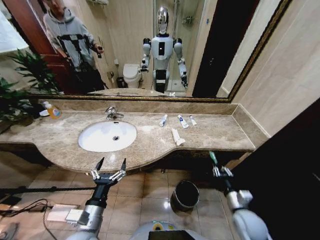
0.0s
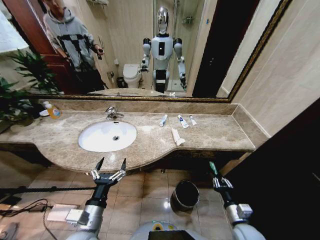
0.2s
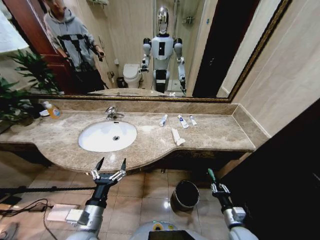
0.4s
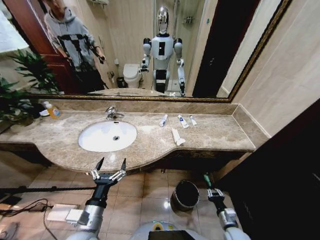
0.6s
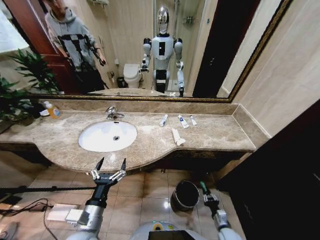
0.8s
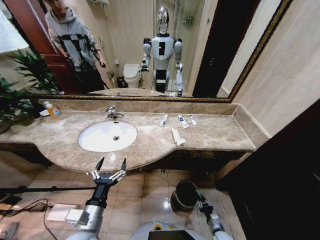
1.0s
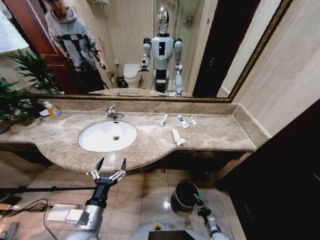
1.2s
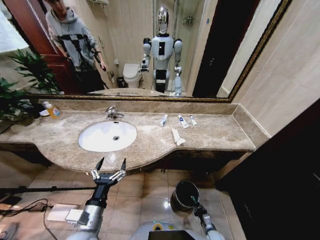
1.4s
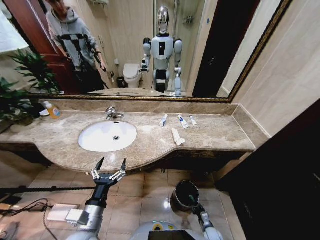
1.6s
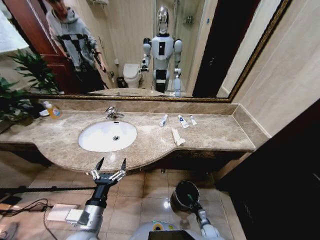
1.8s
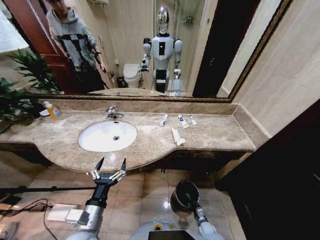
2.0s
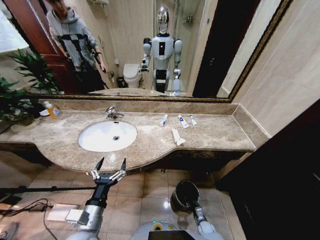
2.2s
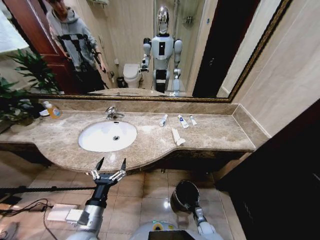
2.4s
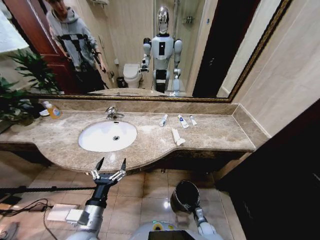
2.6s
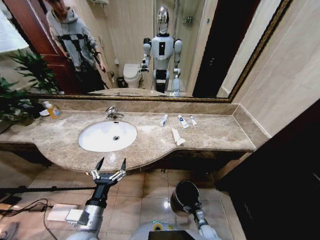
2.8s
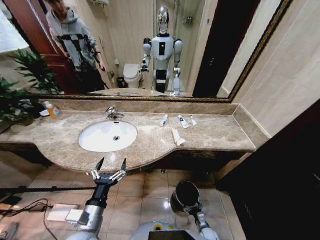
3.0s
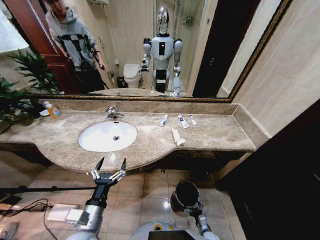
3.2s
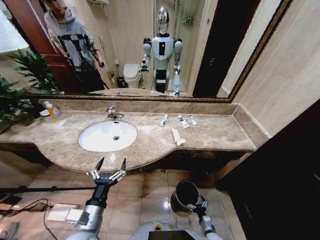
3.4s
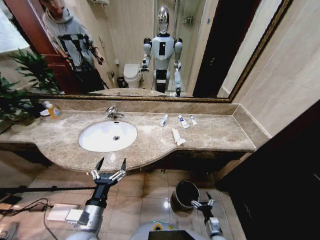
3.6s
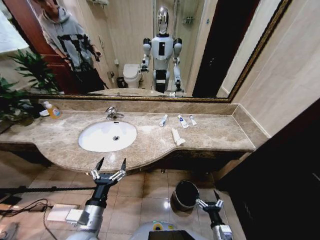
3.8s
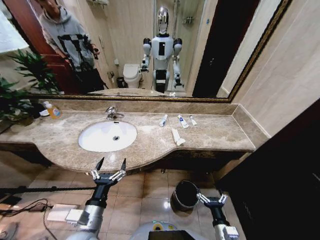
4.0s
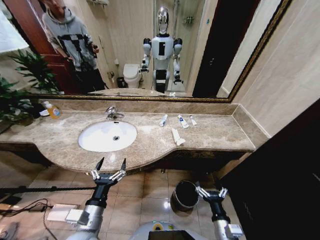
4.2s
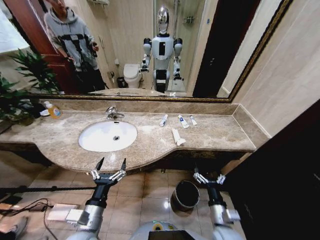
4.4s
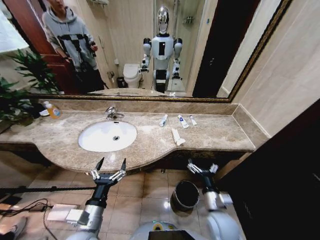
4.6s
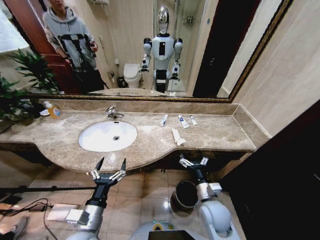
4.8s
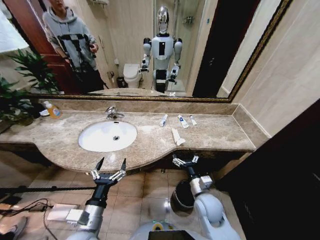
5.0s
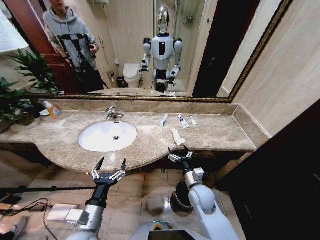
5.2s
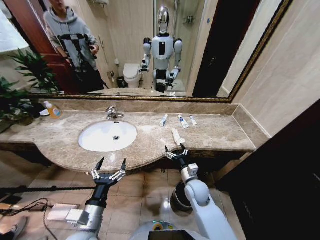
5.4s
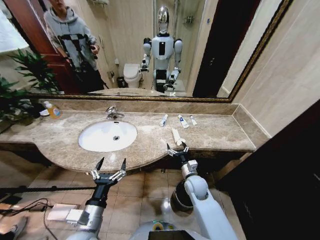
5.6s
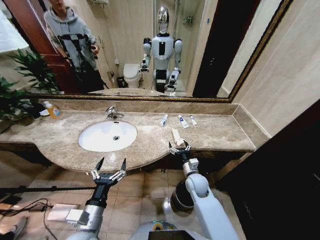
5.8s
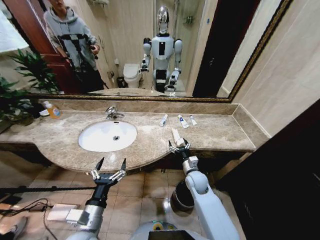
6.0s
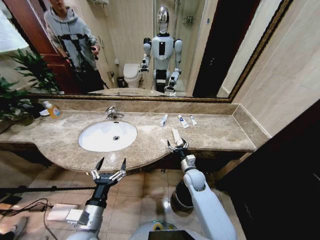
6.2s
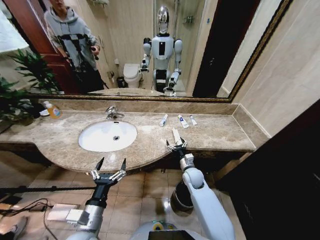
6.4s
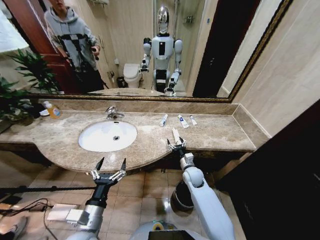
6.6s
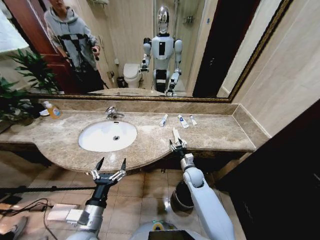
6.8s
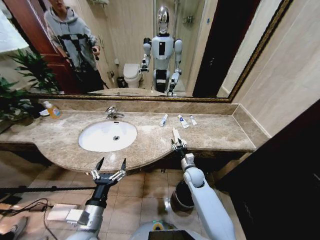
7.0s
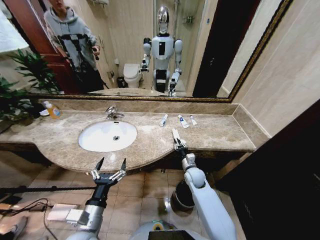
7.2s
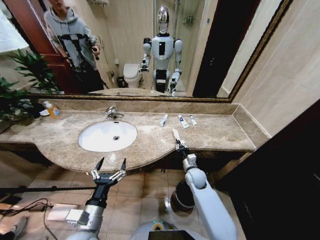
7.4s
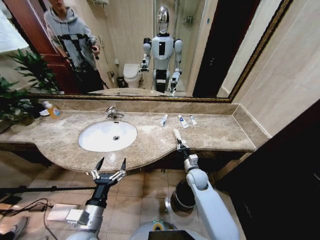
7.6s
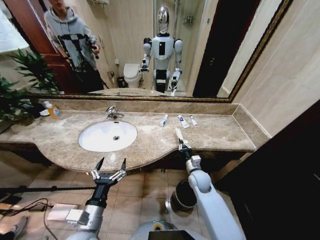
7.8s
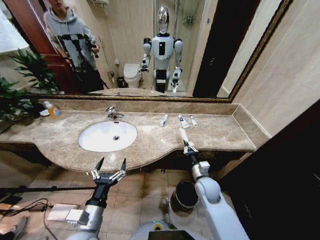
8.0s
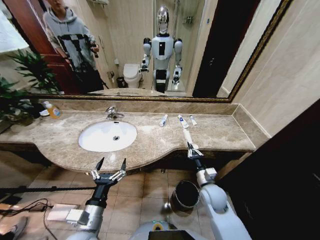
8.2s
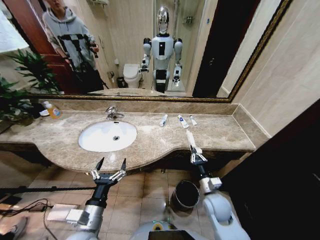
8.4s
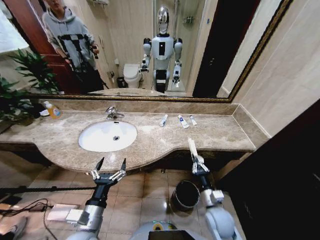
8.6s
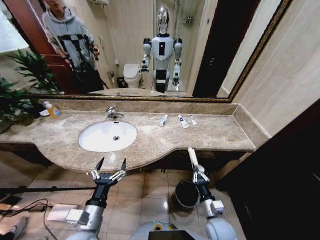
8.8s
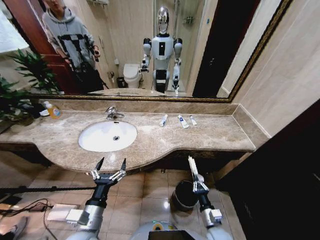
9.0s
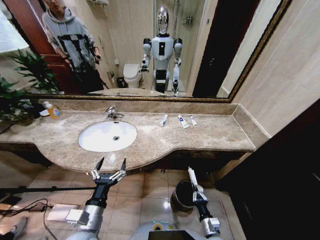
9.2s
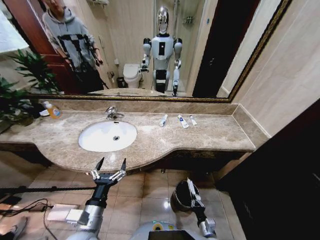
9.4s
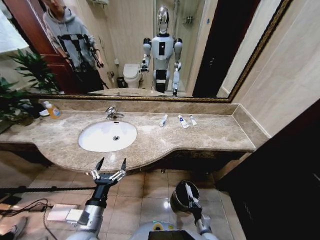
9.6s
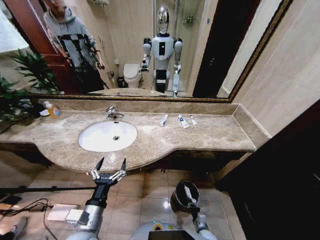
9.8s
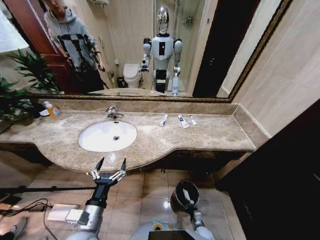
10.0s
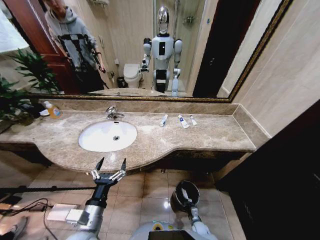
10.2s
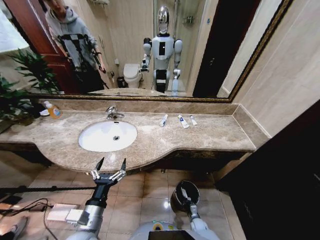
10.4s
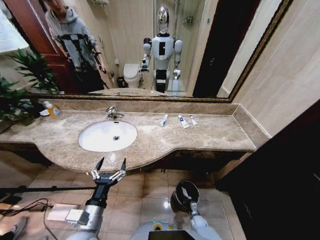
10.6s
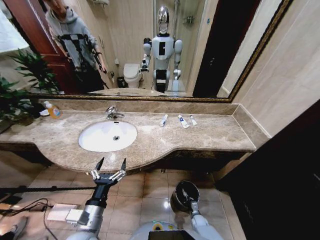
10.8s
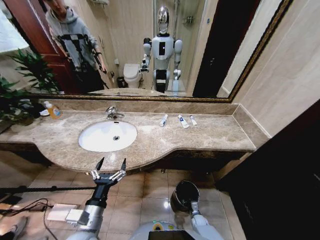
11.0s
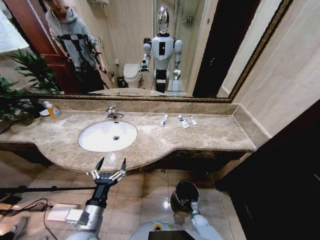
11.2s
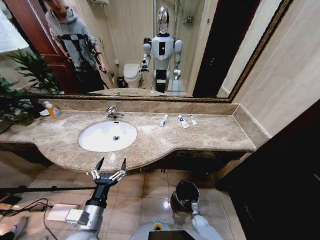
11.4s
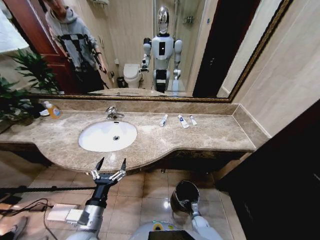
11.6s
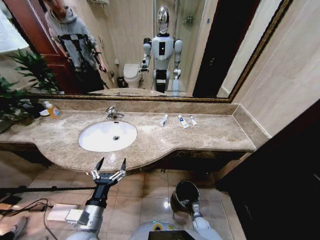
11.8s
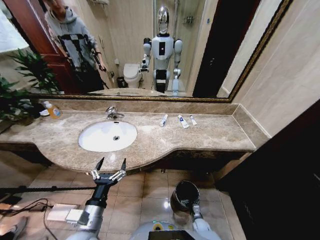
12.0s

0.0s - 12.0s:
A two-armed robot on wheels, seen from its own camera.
Task of the whole recording: Pick up the trash from the sink and place it in the trash bin.
0.0s - 1.6s: The right gripper travels downward by about 30 cm.
1.6s - 3.0s: The right gripper opens its fingers.
3.0s - 4.4s: The right gripper is displaced upward by about 30 cm.
4.4s - 6.0s: The right gripper heads forward, covering roughly 20 cm.
6.0s - 7.6s: The right gripper closes its fingers.
7.6s - 9.0s: The right gripper is displaced backward by roughly 25 cm.
9.0s - 10.4s: The right gripper heads downward, covering about 25 cm.

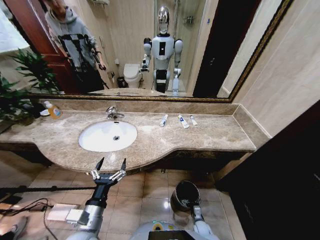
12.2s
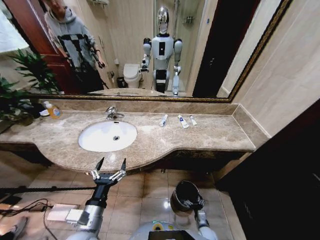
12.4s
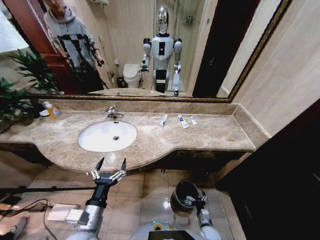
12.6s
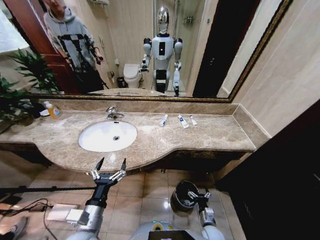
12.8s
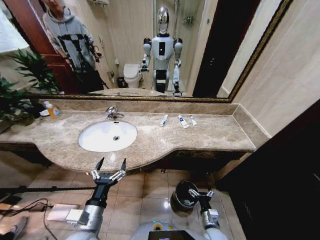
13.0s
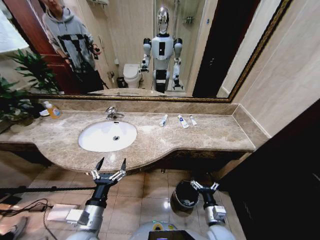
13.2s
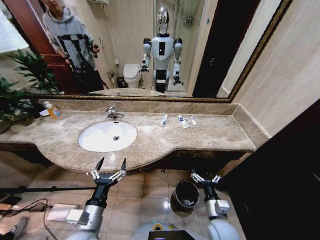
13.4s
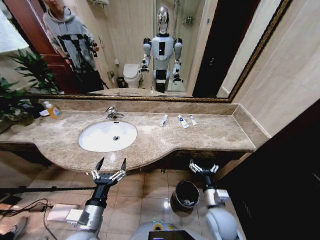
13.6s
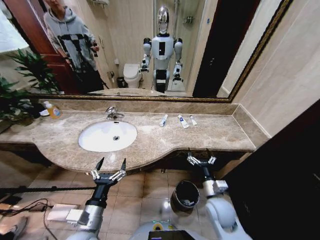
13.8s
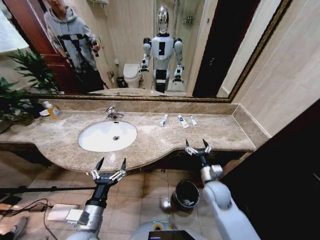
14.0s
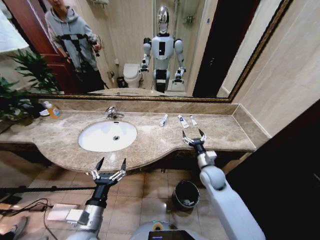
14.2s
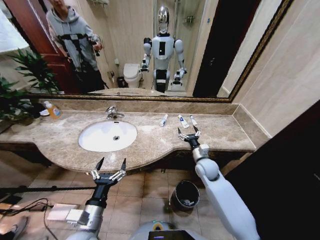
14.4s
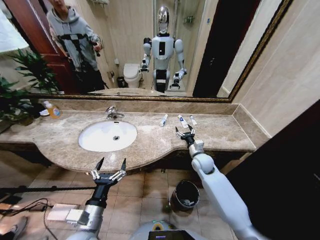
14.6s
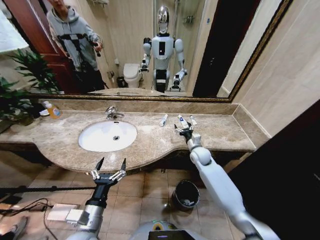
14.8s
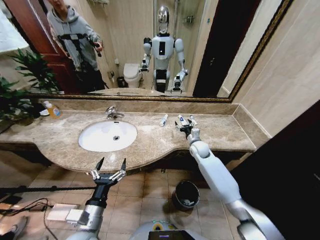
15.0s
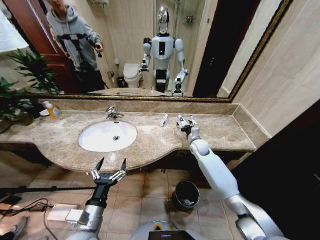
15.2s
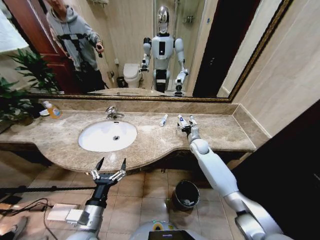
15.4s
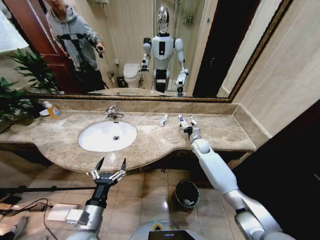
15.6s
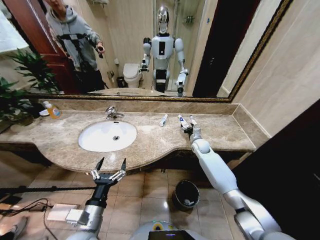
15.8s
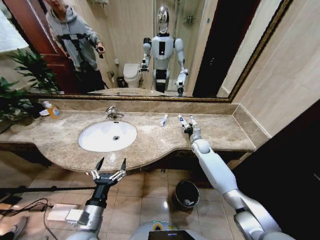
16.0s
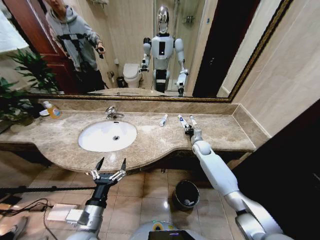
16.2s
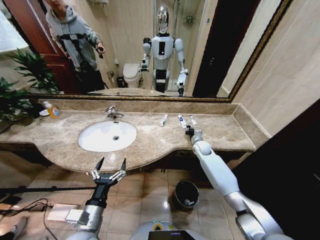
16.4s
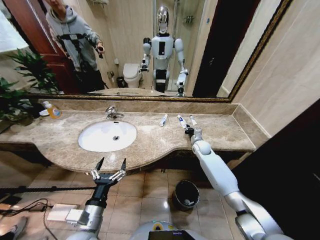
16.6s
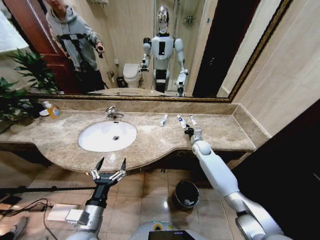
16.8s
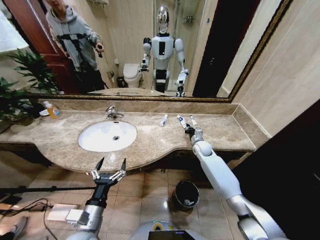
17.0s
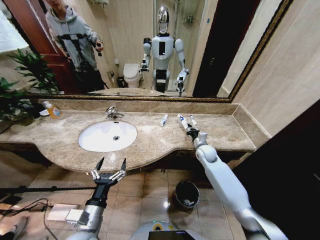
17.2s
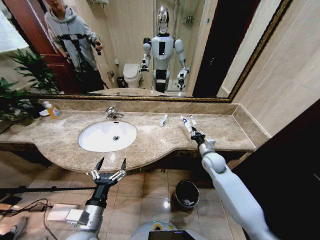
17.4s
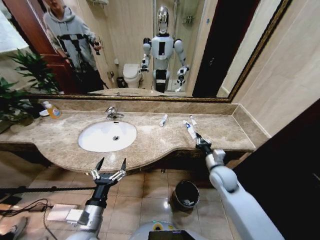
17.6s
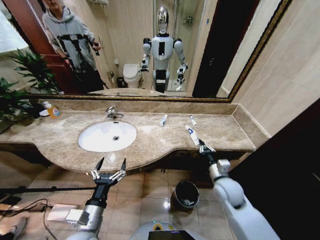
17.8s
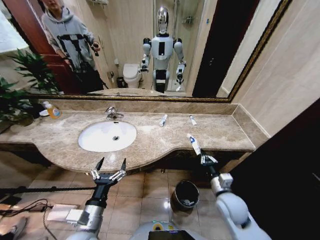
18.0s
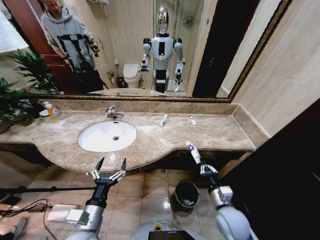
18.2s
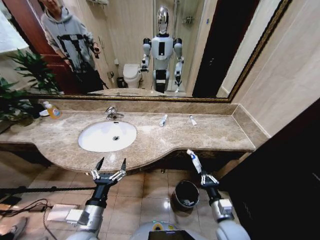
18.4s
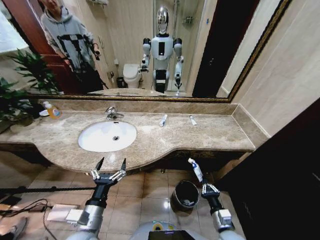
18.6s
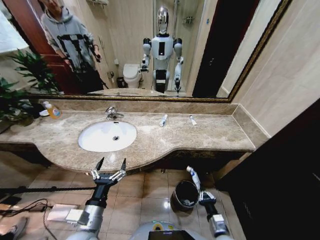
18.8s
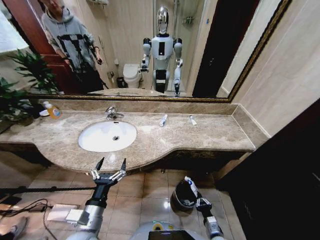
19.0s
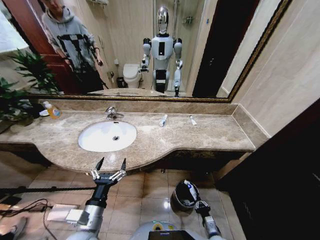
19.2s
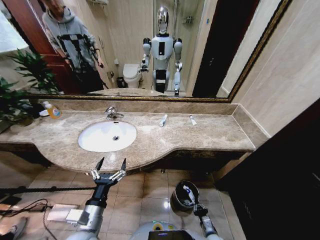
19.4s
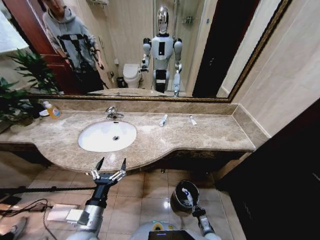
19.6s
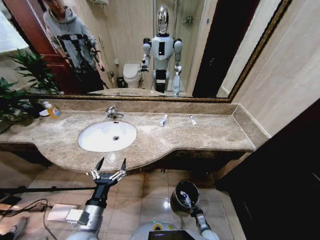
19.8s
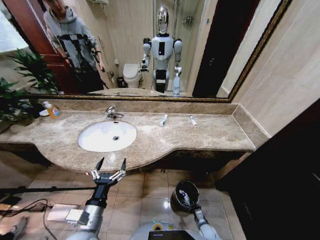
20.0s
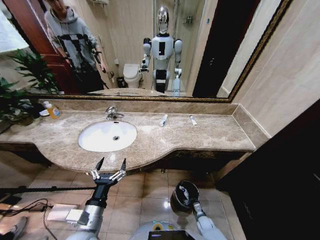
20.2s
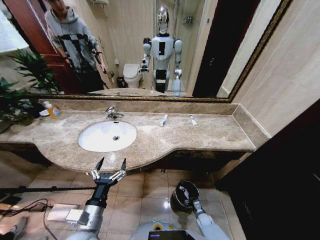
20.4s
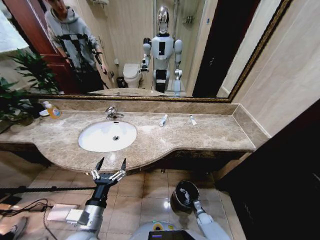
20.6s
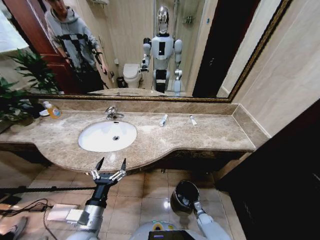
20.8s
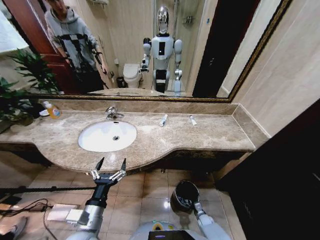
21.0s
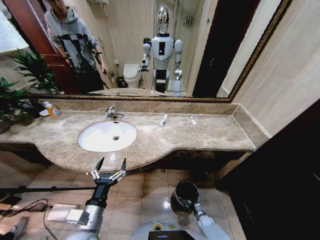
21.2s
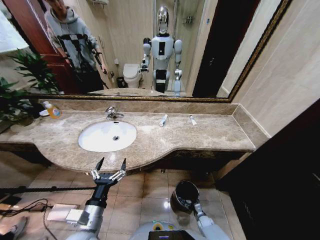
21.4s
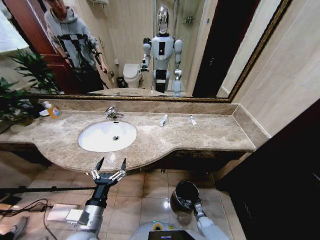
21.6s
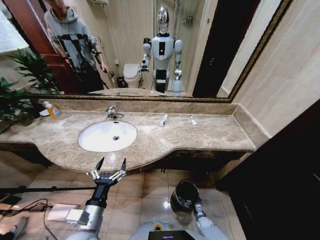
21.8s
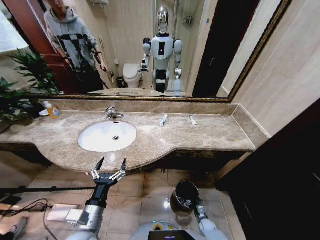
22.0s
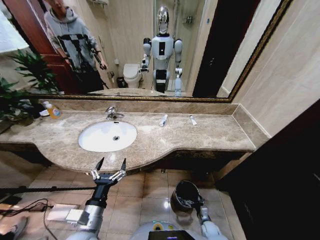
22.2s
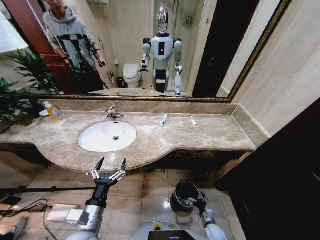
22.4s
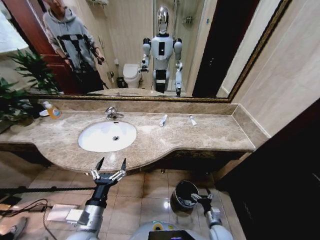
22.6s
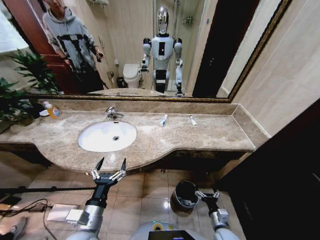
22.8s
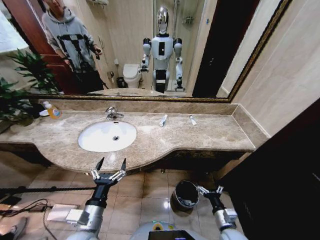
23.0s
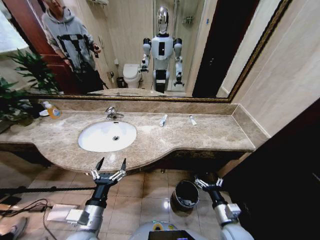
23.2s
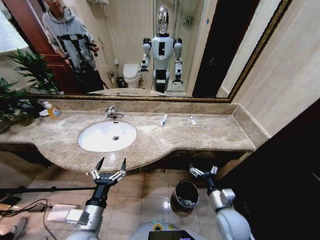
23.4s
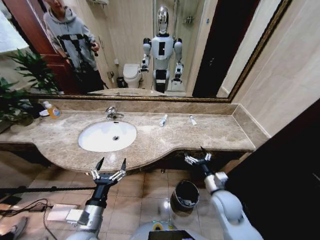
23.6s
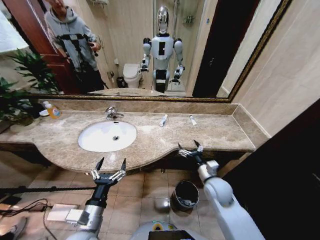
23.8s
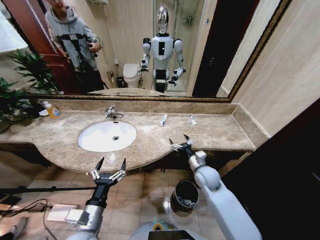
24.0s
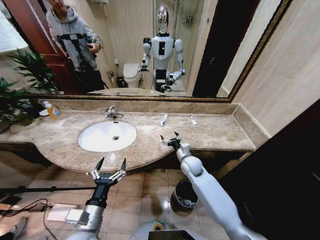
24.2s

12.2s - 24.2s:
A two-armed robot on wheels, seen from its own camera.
Task of the whole recording: Pick up the trash from the sink and place it in the trash bin.
12.2s - 13.8s: The right gripper heads upward, covering some 35 cm.
13.8s - 15.2s: The right gripper is displaced forward by about 30 cm.
15.2s - 16.6s: The right gripper closes its fingers.
16.6s - 18.2s: The right gripper travels backward by about 35 cm.
18.2s - 19.8s: The right gripper travels downward by approximately 30 cm.
19.8s - 21.2s: The right gripper moves forward, some 10 cm, and opens.
21.2s - 22.6s: The right gripper moves upward and backward, approximately 15 cm, and opens its fingers.
22.6s - 24.2s: The right gripper travels forward, upward and to the left by some 35 cm.
